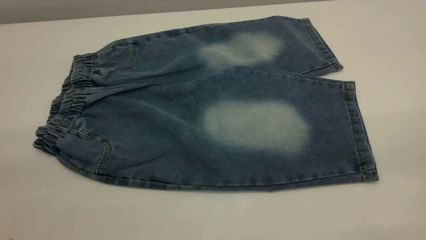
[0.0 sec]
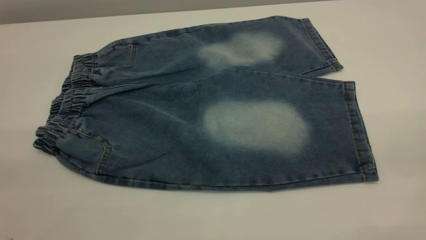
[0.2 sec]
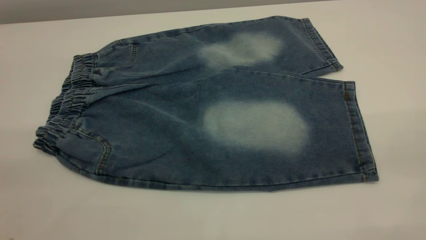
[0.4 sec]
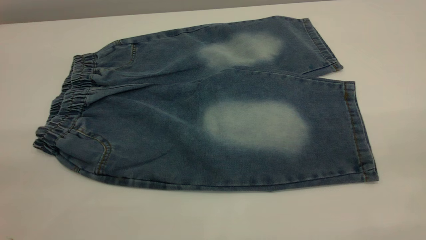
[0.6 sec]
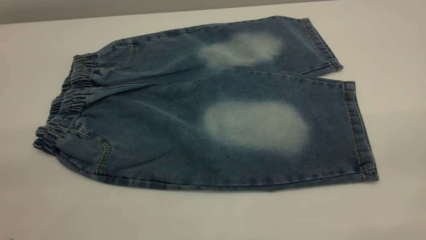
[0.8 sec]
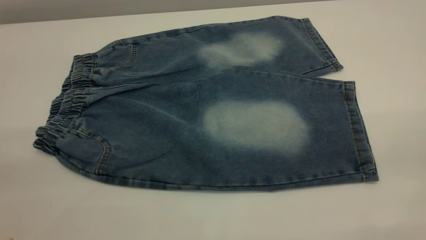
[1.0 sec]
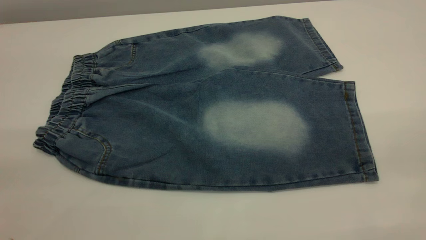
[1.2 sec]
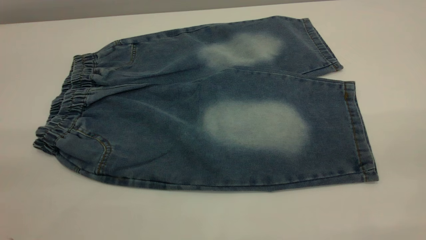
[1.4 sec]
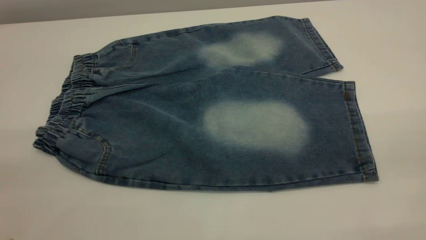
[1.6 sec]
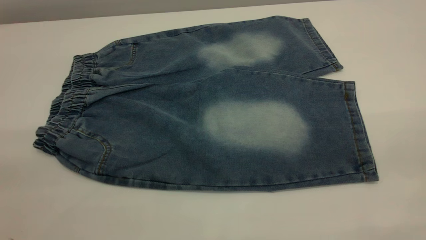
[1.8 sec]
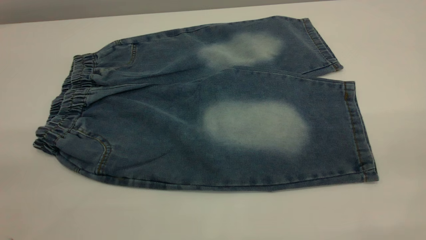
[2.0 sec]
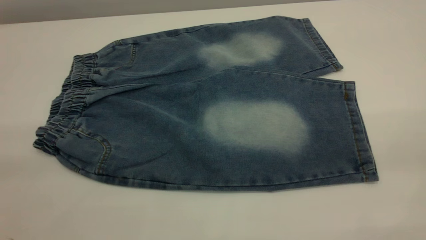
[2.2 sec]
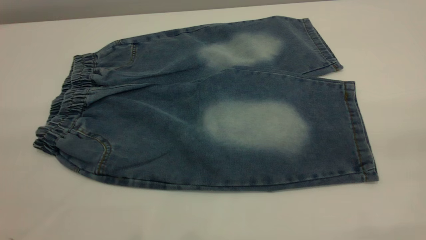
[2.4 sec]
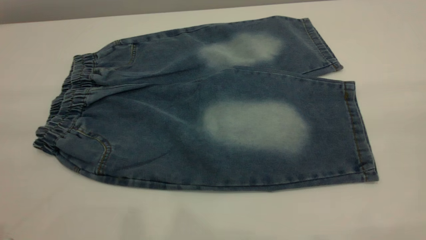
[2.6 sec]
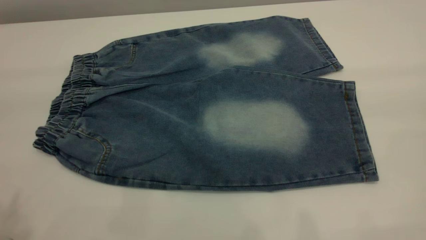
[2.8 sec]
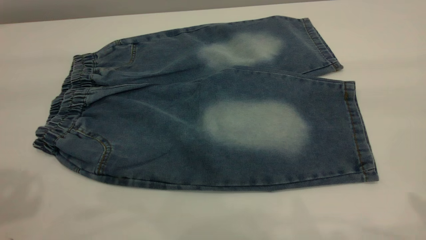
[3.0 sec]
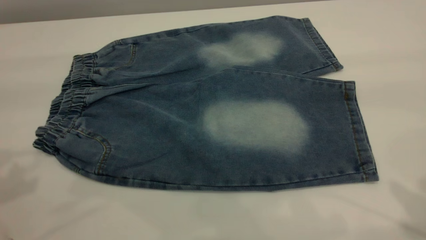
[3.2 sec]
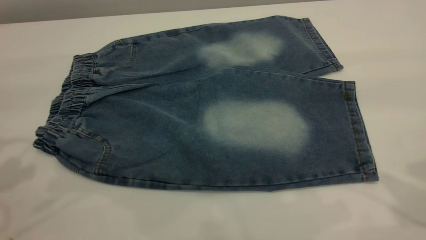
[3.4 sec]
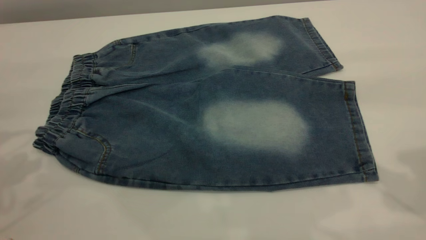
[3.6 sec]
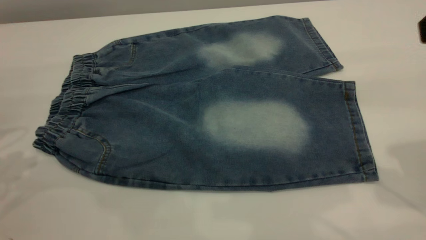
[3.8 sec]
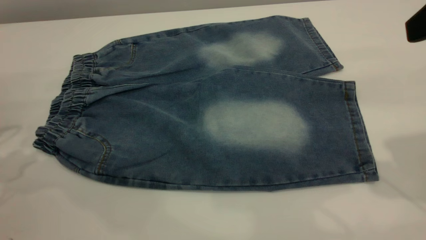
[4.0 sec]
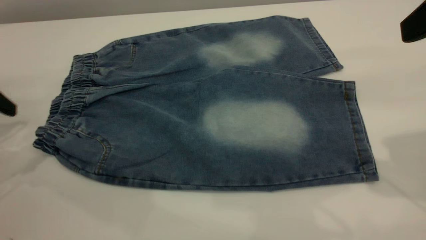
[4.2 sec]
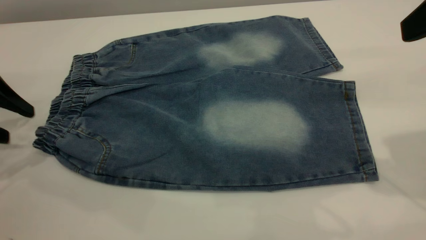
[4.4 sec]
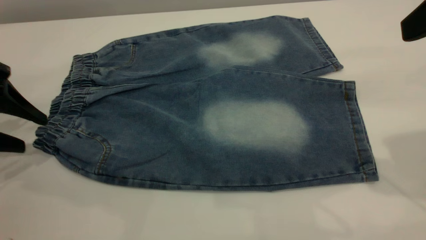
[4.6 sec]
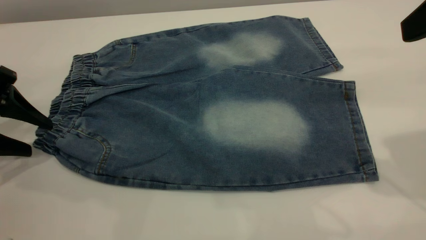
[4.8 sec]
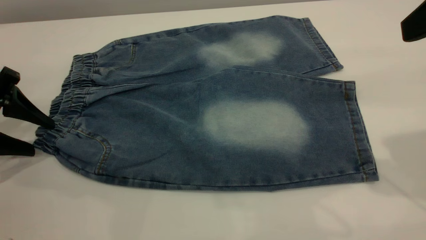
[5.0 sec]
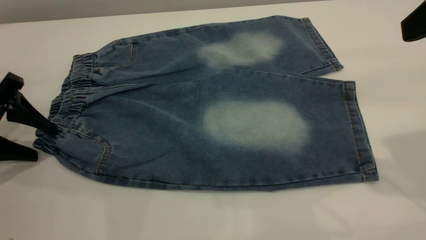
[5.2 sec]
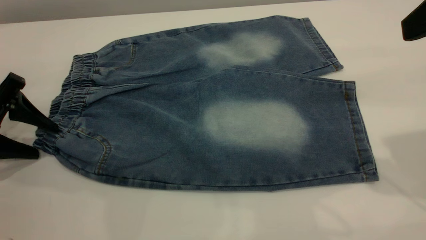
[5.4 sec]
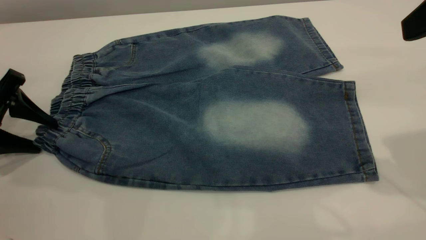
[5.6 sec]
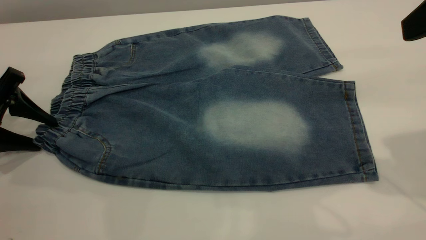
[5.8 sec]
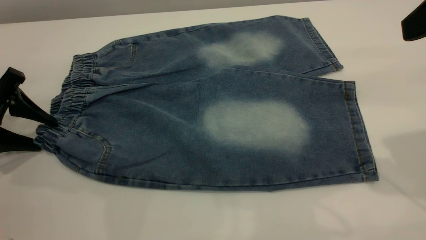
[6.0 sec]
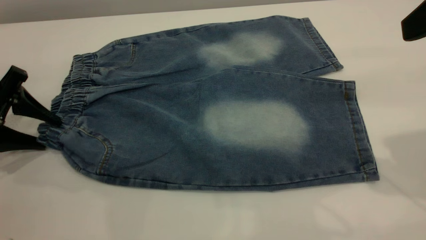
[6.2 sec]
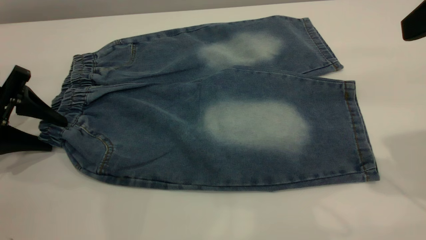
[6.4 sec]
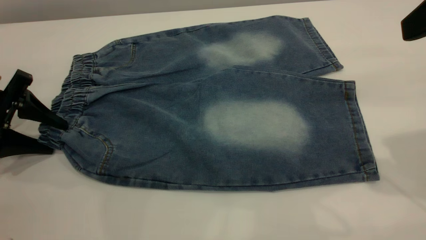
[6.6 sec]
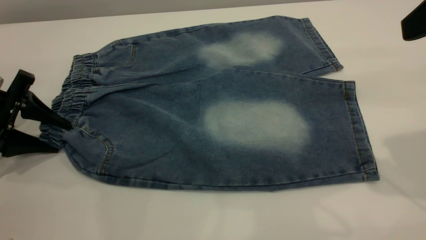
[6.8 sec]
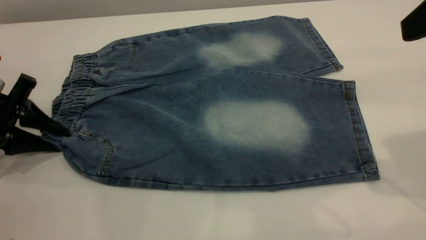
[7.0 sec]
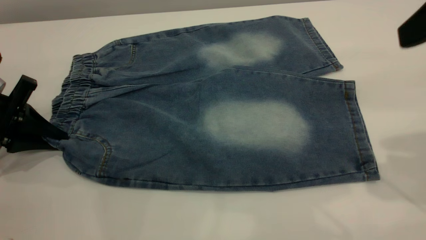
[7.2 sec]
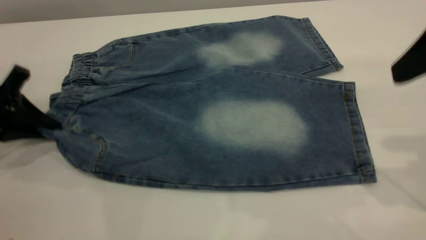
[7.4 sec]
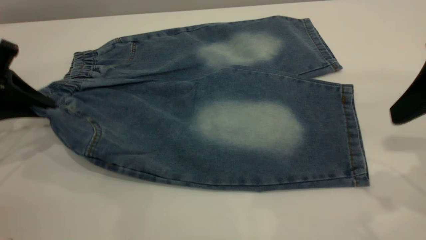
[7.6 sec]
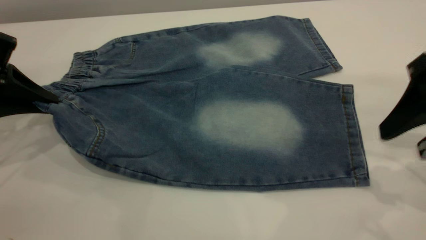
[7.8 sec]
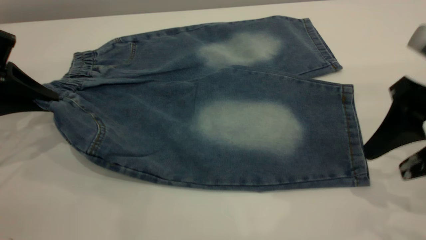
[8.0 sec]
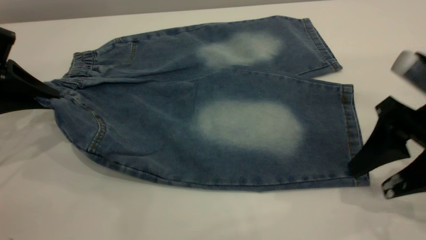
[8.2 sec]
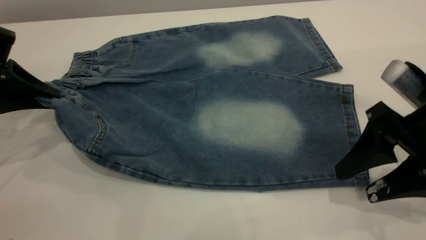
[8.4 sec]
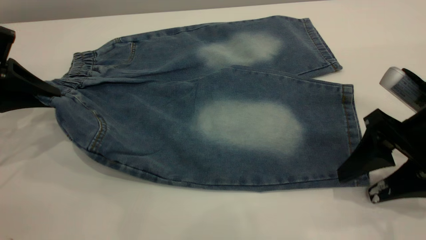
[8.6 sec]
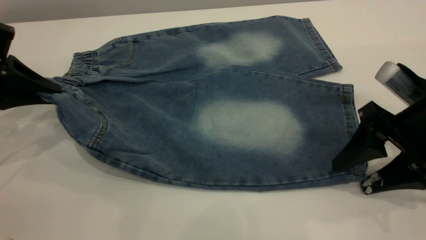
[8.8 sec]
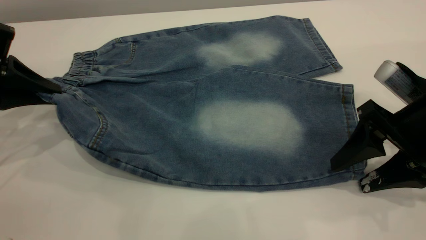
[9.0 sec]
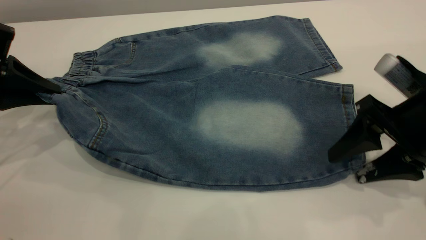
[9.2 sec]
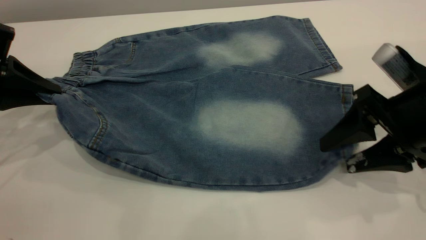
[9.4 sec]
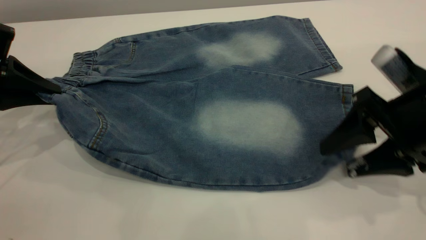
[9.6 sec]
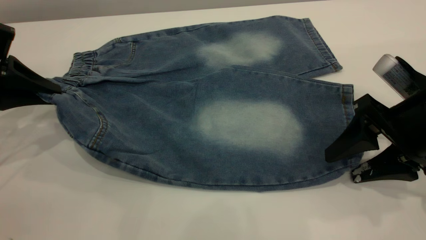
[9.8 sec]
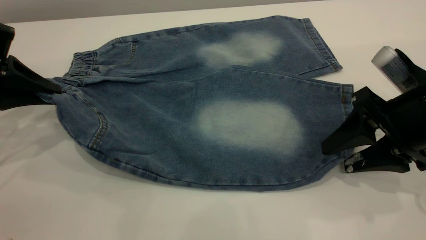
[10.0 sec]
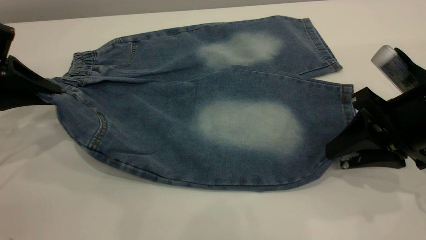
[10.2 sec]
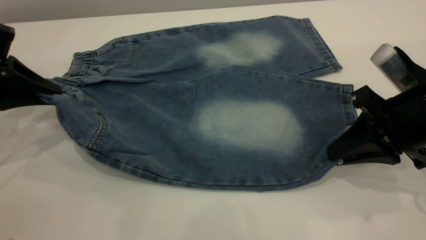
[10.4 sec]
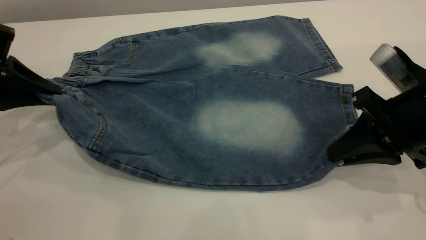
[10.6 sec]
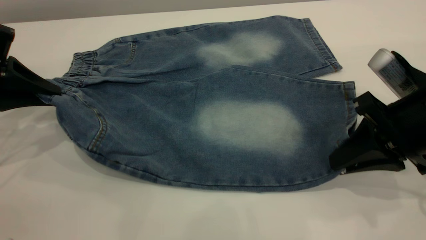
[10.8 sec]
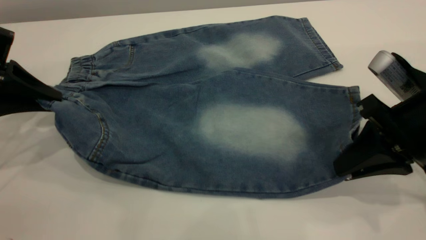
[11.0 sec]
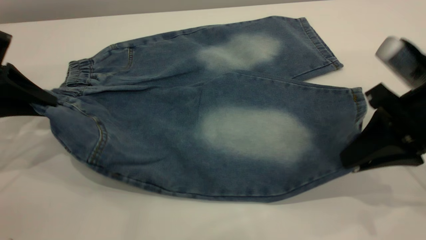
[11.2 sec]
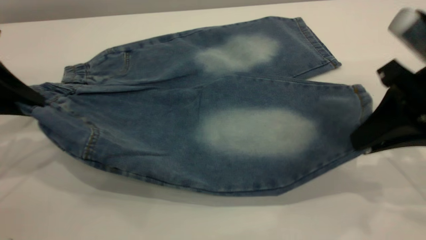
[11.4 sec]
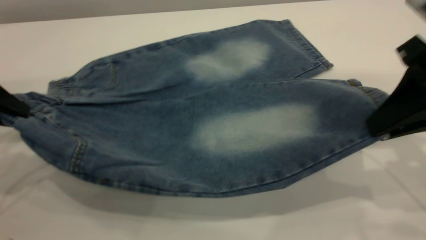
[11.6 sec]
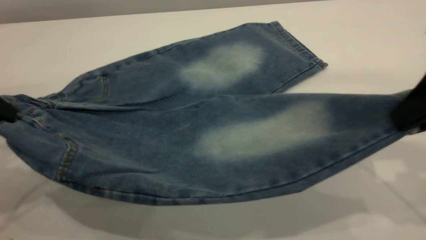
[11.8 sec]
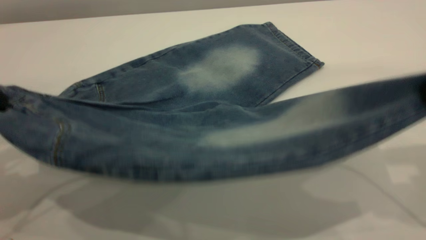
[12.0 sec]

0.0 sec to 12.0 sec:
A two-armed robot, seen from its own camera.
0.0 sec to 1.6 sec: The two grippers keep their place.
3.0 sec to 4.4 sec: The left gripper goes some 20 cm downward and forward. The right gripper shifts approximately 10 cm forward and downward.
4.4 sec to 6.0 sec: The left gripper shifts by roughly 5 cm.
6.0 sec to 7.6 sec: The right gripper shifts about 5 cm downward; the left gripper closes up.
7.6 sec to 9.0 sec: The right gripper moves downward, some 10 cm.
9.0 sec to 10.4 sec: The right gripper closes.
10.4 sec to 12.0 sec: The left gripper heads upward and backward, covering about 15 cm; the right gripper heads upward, covering approximately 15 cm.

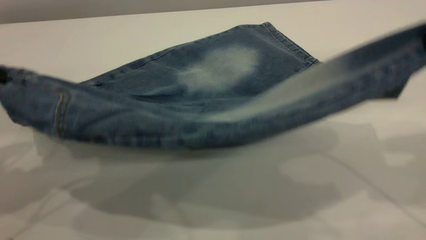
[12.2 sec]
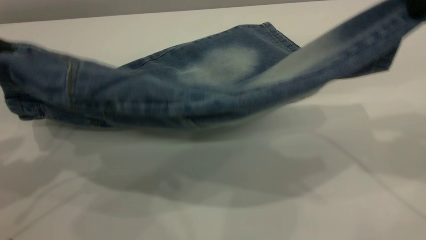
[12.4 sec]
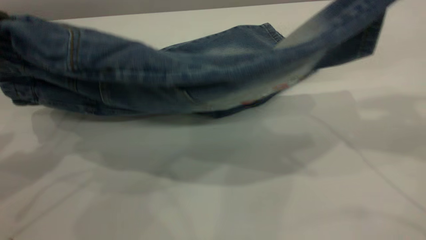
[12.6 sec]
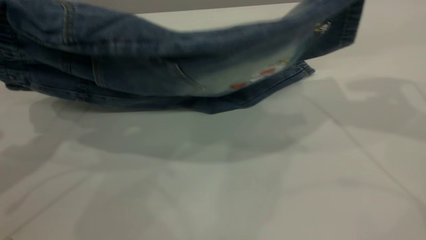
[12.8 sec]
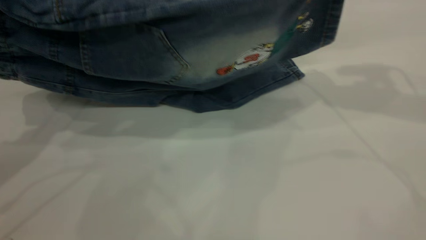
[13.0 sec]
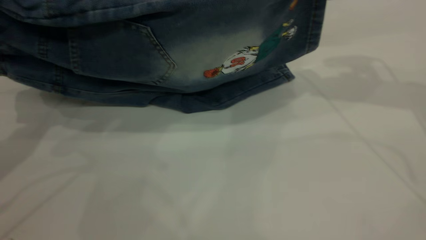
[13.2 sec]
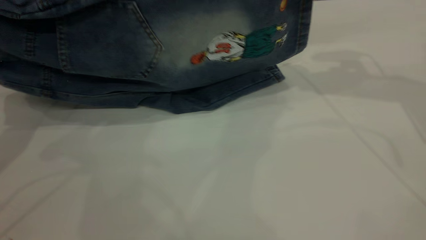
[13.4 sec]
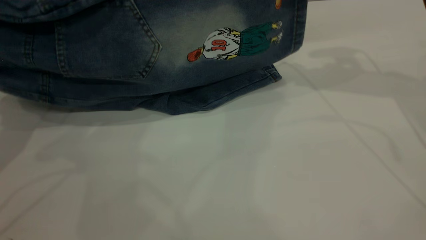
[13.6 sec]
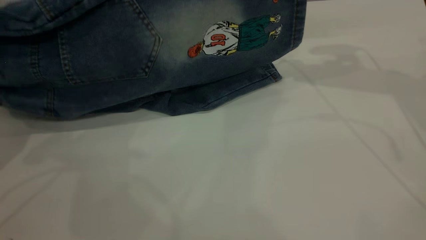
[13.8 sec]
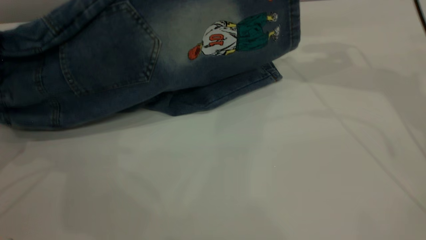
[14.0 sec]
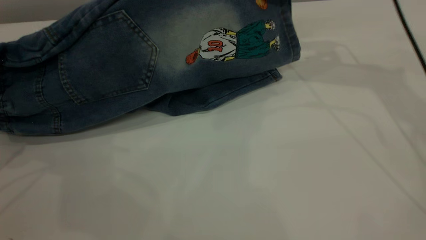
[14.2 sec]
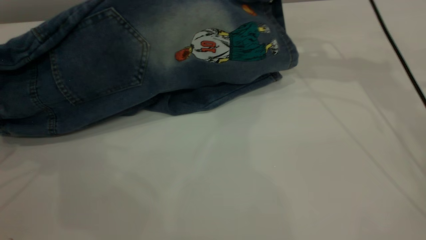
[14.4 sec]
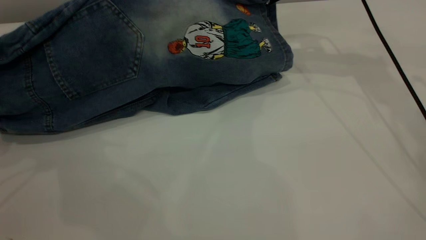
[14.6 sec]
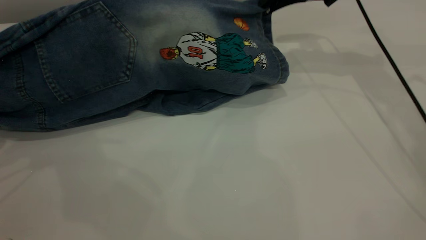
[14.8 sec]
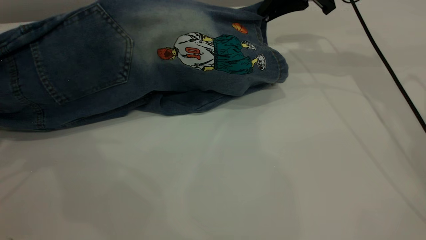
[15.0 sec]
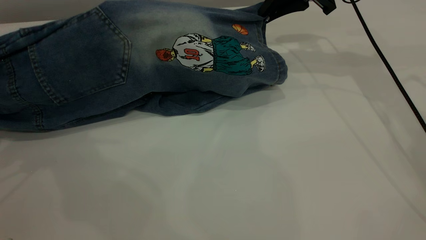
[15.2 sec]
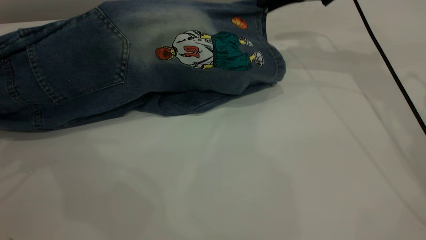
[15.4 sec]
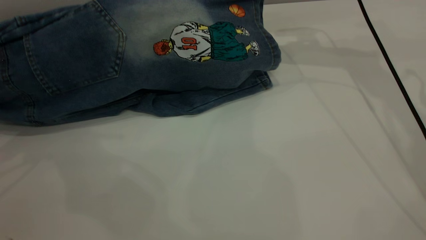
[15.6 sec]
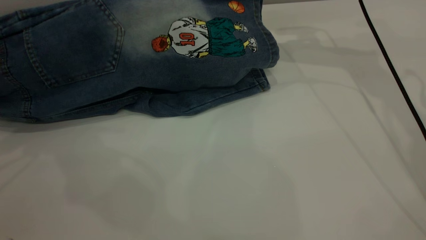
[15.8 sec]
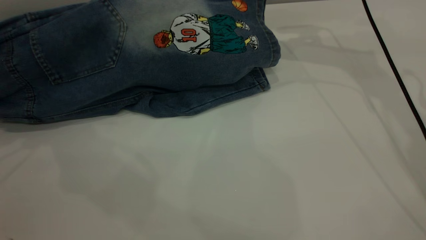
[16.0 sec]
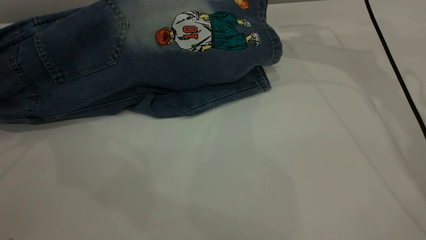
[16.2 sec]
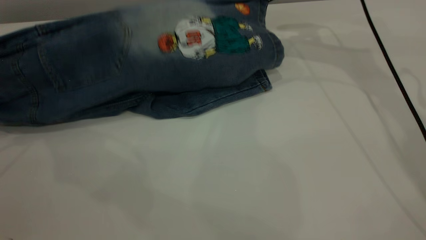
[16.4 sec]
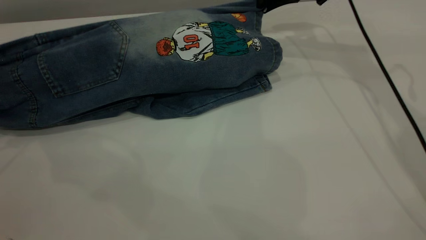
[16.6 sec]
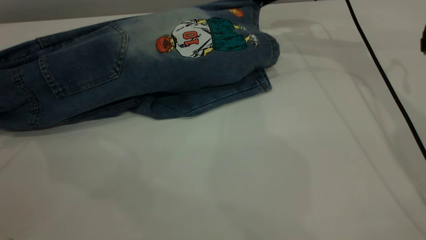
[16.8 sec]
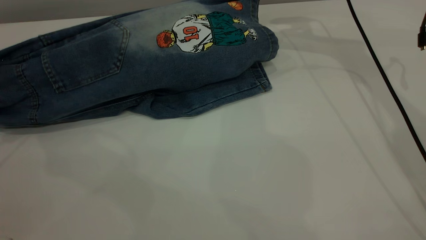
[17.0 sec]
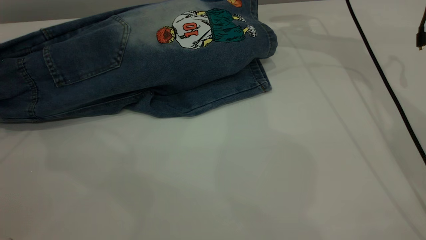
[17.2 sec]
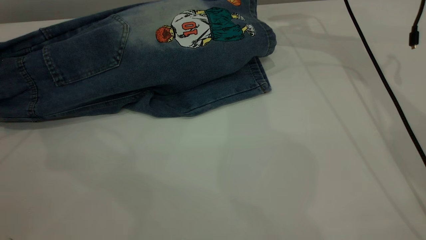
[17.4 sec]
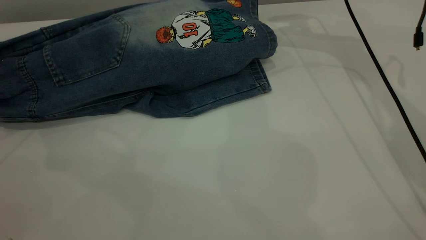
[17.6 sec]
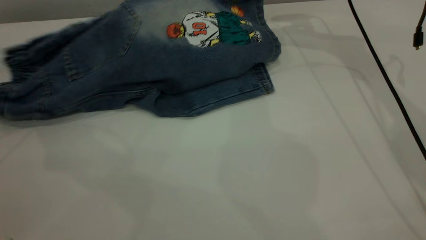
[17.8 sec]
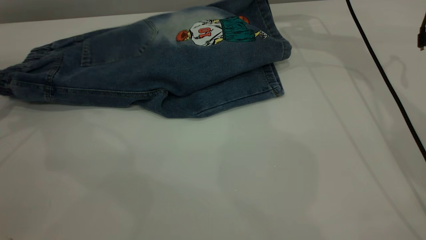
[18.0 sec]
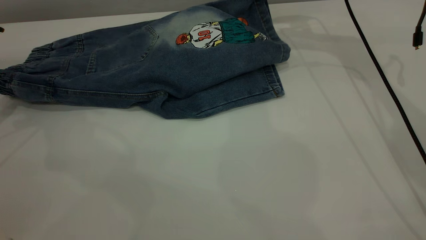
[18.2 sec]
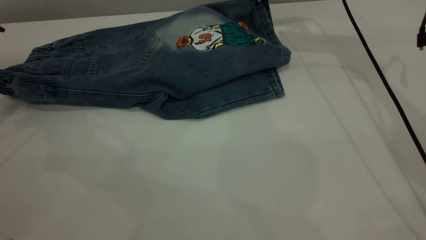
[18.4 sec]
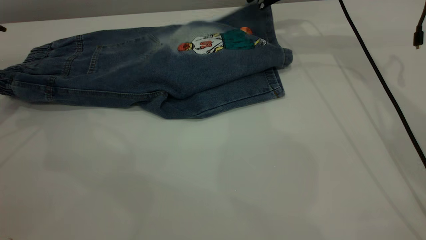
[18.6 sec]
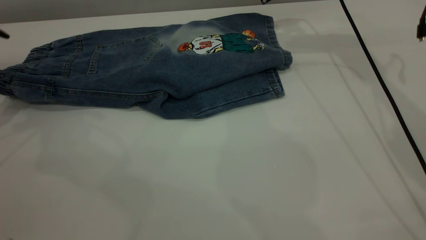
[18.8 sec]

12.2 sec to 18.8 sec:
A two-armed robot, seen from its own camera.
12.2 sec to 13.8 sec: The right gripper heads forward, covering some 20 cm. Meanwhile the left gripper shifts by about 5 cm.
13.8 sec to 15.4 sec: The right gripper is displaced forward and downward by about 10 cm.
15.4 sec to 17.2 sec: The grippers both shift forward by roughly 5 cm.
17.2 sec to 18.8 sec: The right gripper opens up. Meanwhile the left gripper opens up.
